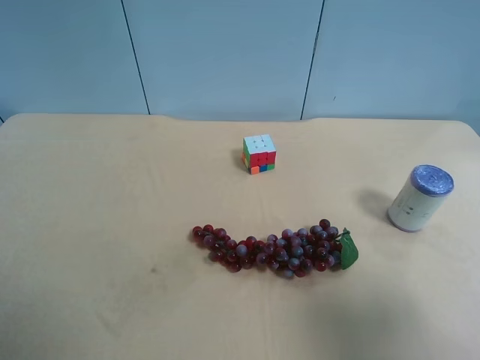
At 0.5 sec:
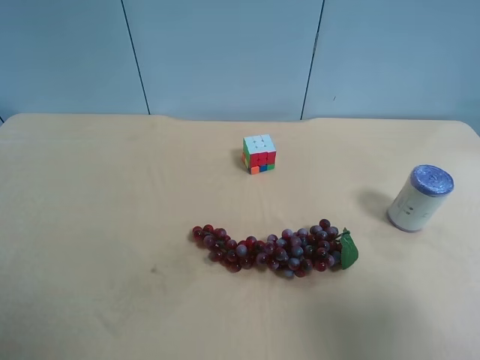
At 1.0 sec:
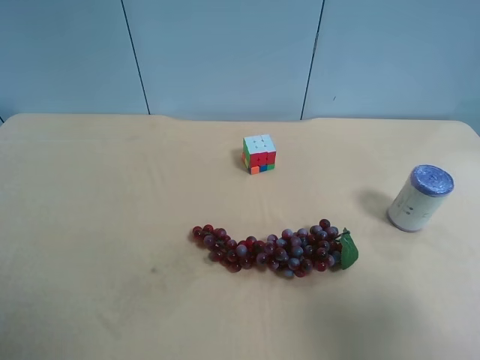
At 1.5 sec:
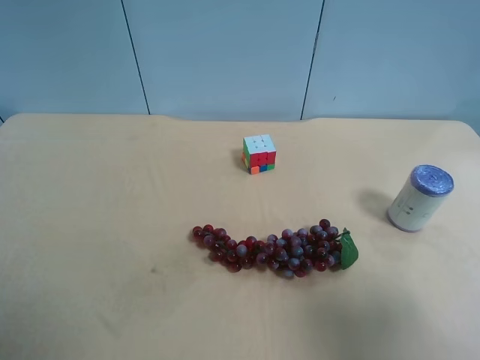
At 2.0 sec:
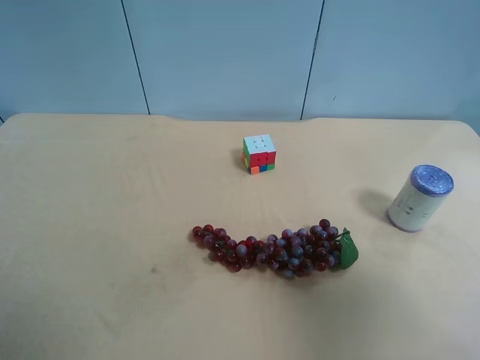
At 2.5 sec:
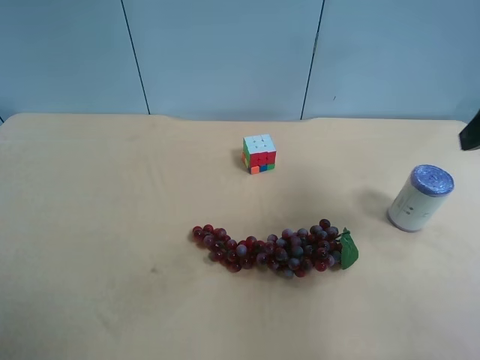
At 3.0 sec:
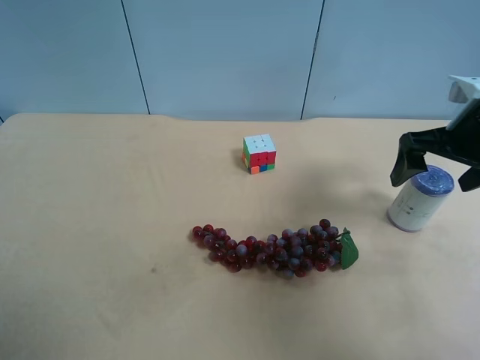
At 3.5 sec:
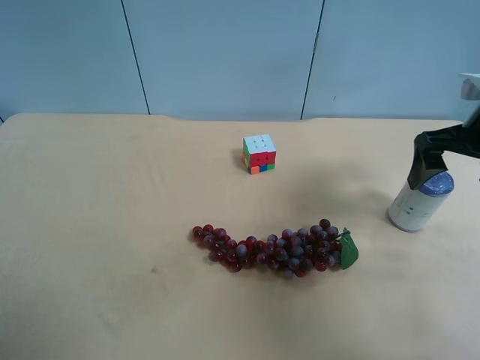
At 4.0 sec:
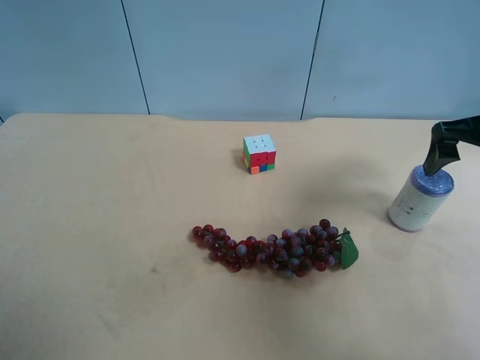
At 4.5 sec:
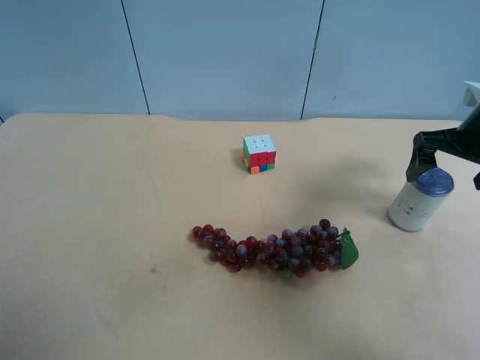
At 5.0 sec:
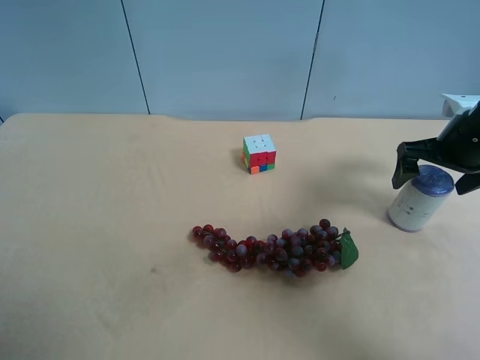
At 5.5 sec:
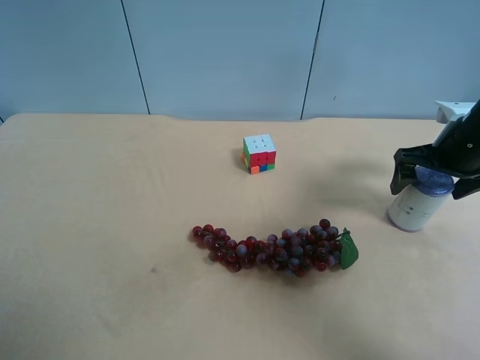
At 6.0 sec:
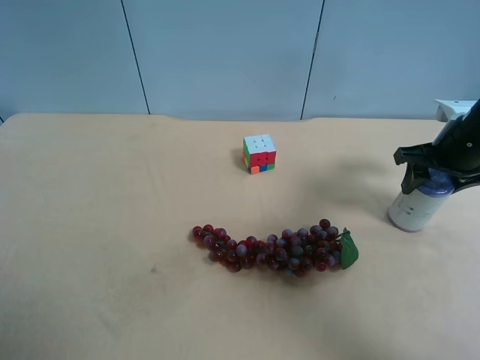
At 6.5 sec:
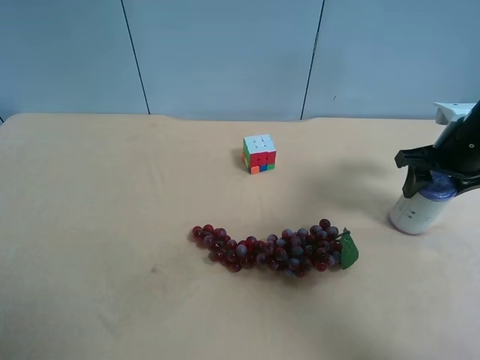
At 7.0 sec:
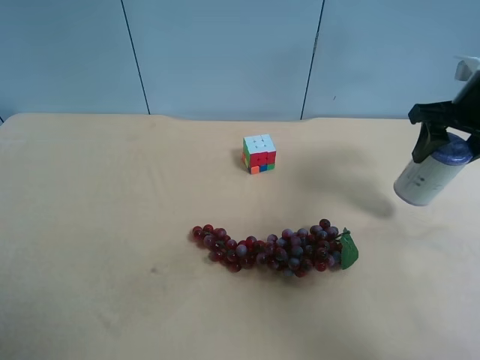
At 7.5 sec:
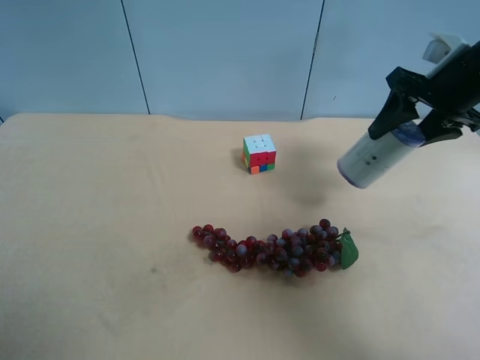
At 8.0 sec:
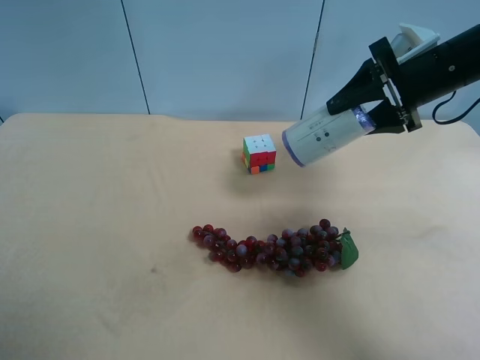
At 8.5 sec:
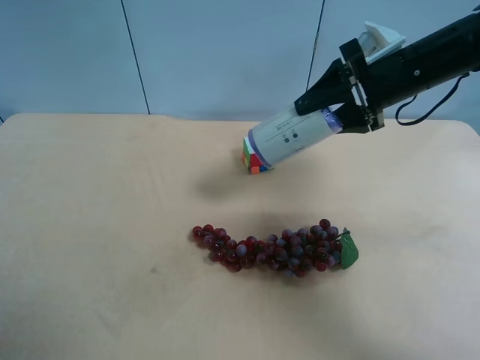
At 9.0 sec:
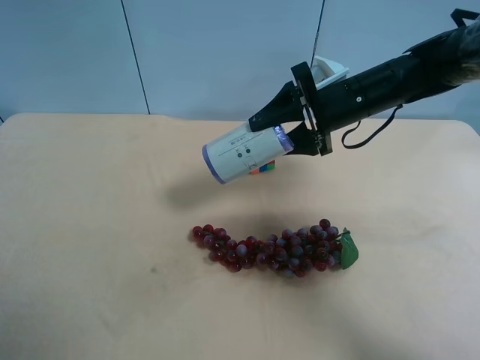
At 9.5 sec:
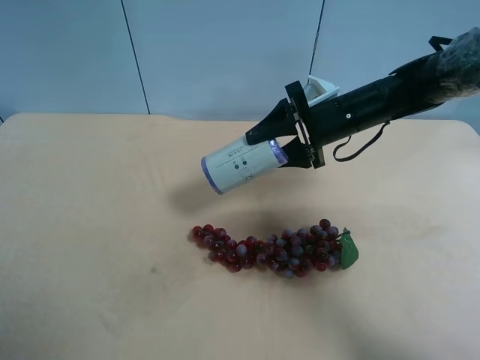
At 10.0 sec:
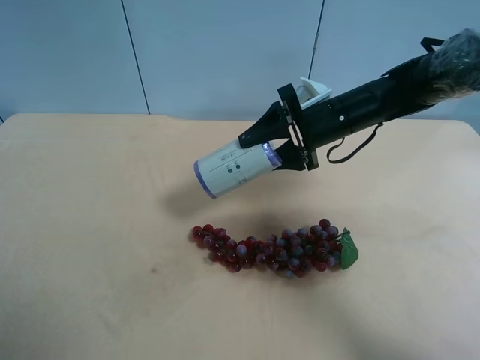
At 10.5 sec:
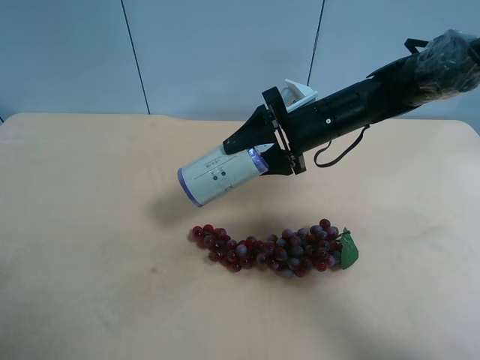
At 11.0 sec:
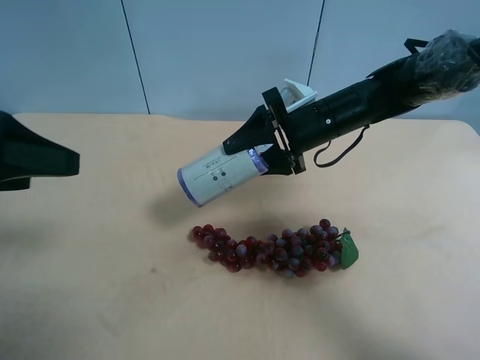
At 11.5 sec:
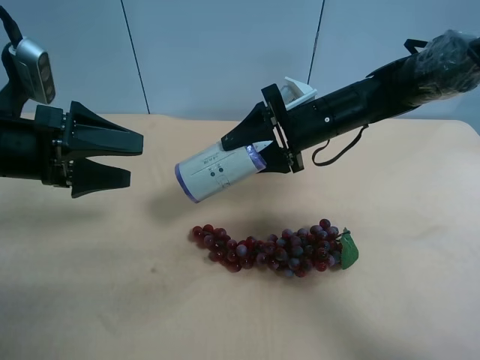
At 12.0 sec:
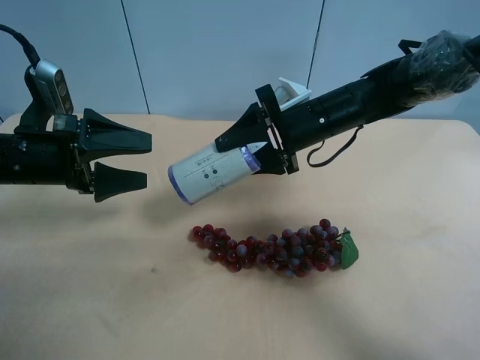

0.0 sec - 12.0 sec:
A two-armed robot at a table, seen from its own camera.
Task of the whole recording: use the right gripper to pick up the item and transfer it from the right gripper to the left gripper.
2.0 sec - 4.0 sec: The right gripper heads forward, covering some 25 cm.
4.0 sec - 6.0 sec: The right gripper moves downward, roughly 5 cm, and closes up.
6.0 sec - 8.0 sec: The right gripper is displaced upward and to the left by about 10 cm.
8.0 sec - 10.0 sec: The right gripper heads to the left and downward, covering approximately 15 cm.
10.0 sec - 12.0 sec: The left gripper moves forward and downward, roughly 30 cm.

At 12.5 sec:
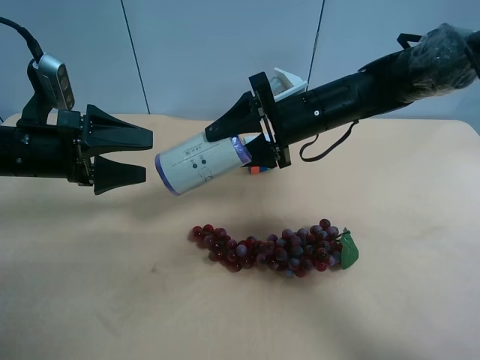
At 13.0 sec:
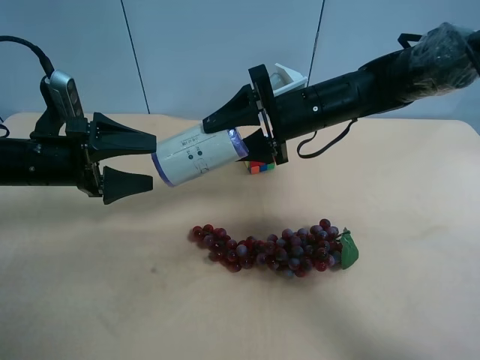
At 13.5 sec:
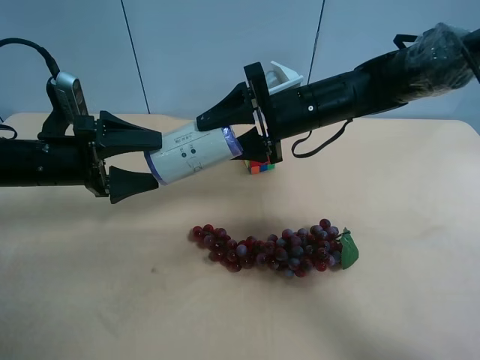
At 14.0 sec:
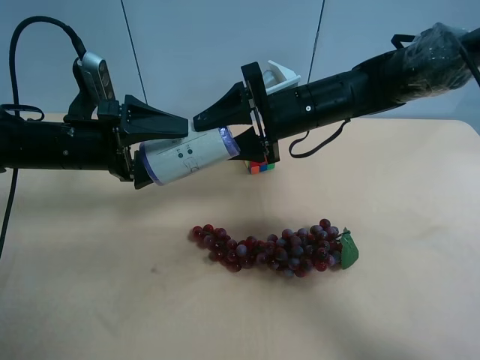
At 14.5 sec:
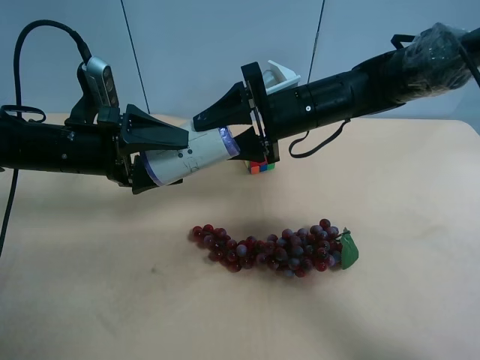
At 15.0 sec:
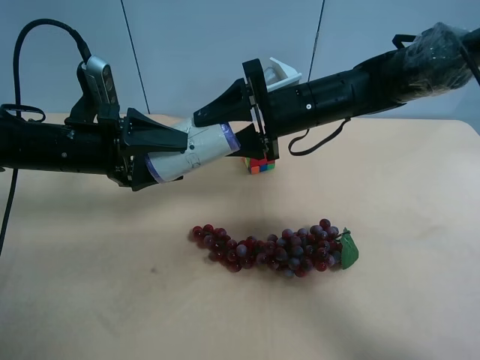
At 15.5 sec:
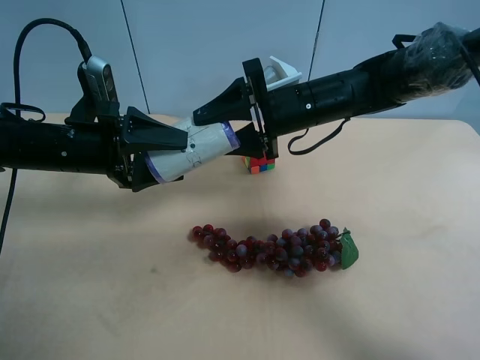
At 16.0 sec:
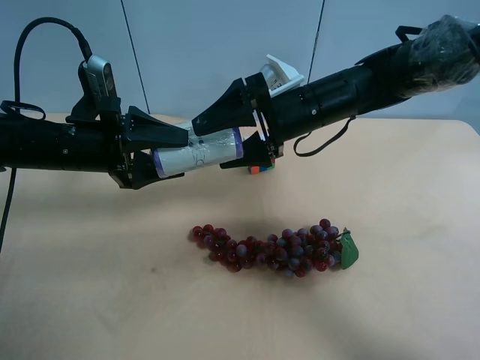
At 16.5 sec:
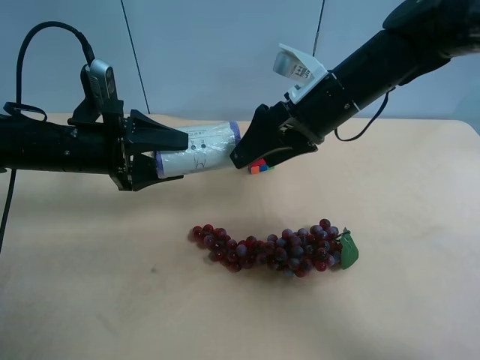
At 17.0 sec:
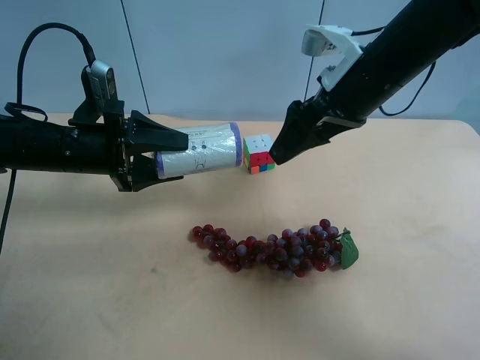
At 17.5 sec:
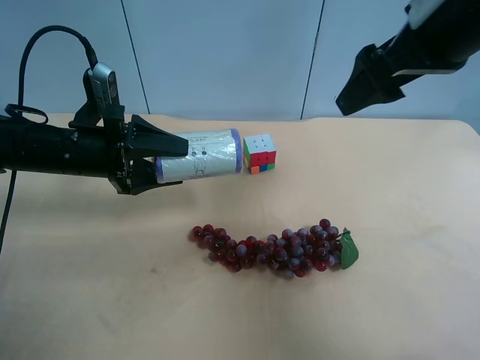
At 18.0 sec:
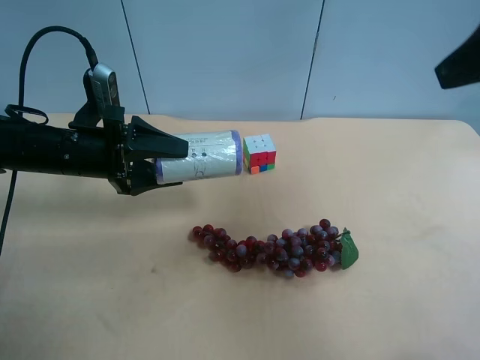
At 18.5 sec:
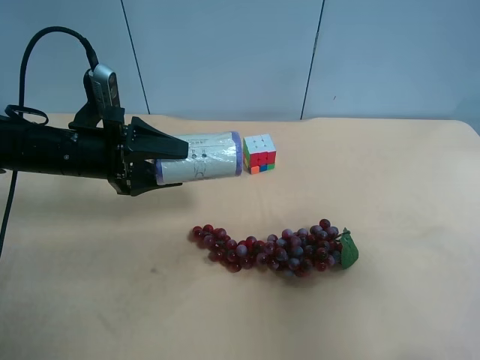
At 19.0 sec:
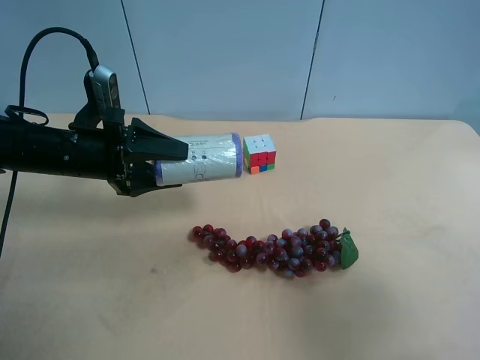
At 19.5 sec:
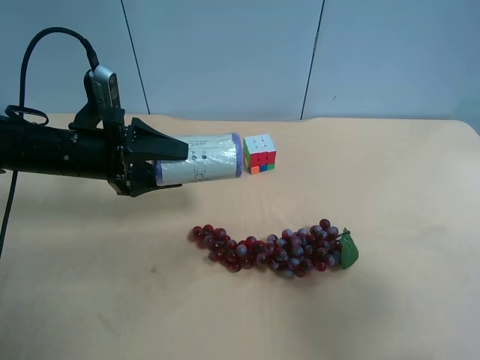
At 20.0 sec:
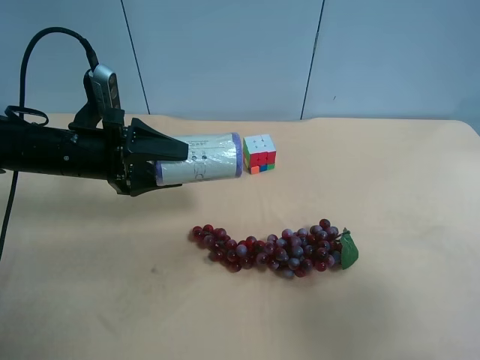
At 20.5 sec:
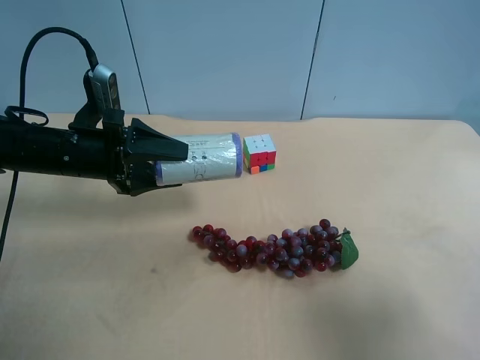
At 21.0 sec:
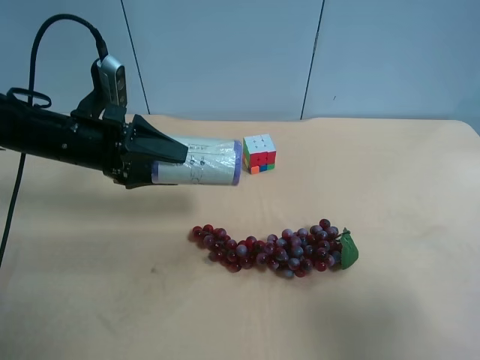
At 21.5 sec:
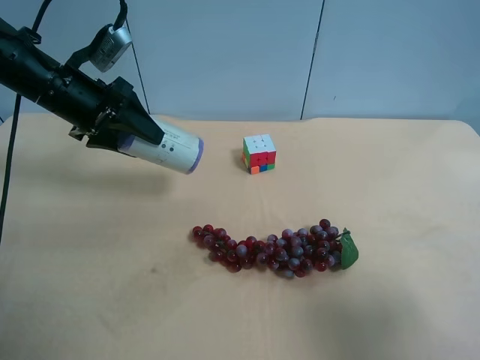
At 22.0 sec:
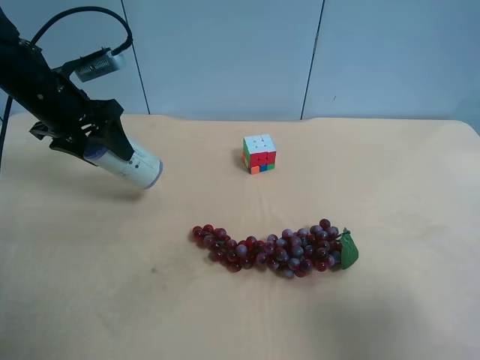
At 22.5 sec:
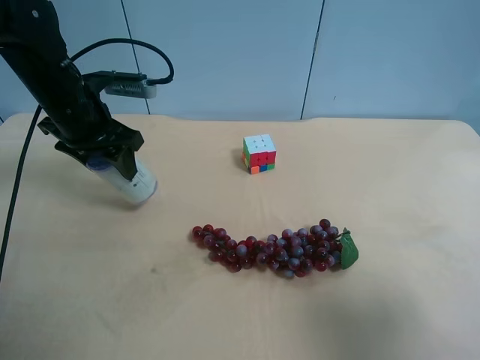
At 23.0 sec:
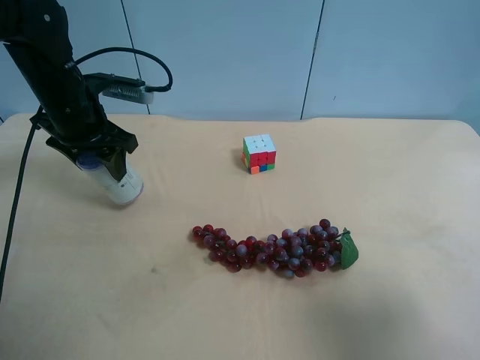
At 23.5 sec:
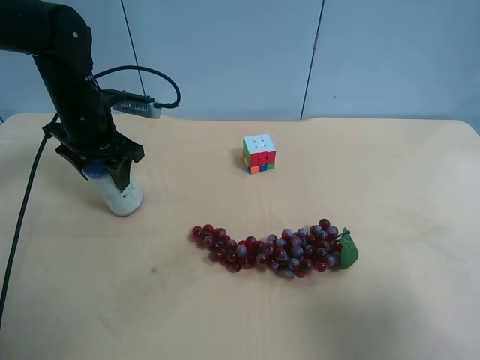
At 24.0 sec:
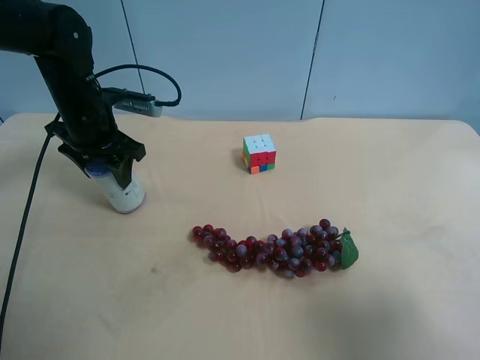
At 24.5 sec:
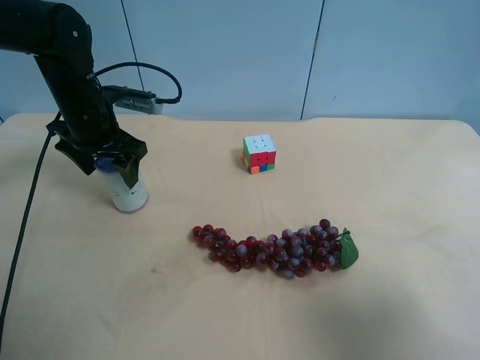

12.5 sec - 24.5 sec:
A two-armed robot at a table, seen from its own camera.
Task of the whole recording: use the right gripper to pick up the item and transfer it from the right gripper to the left gripper.
12.5 sec - 14.5 sec: The grippers move only a little.
14.5 sec - 16.5 sec: The right gripper changes place by some 5 cm, and opens up, while the left gripper closes up.
16.5 sec - 18.5 sec: The right gripper is displaced backward and to the right by roughly 30 cm.
18.5 sec - 20.5 sec: The right gripper is displaced backward by roughly 5 cm.
20.5 sec - 22.5 sec: The left gripper goes about 10 cm upward and forward.
22.5 sec - 24.5 sec: The left gripper opens its fingers.

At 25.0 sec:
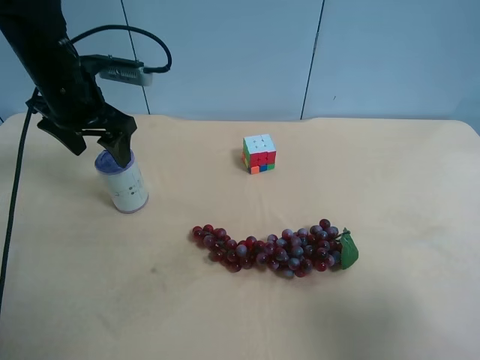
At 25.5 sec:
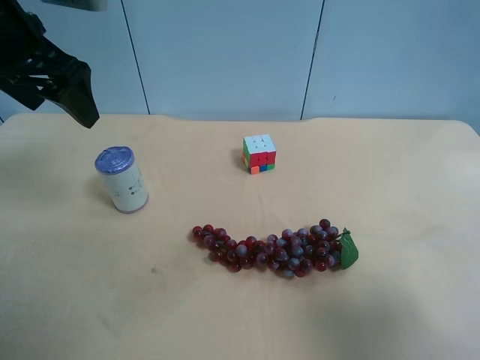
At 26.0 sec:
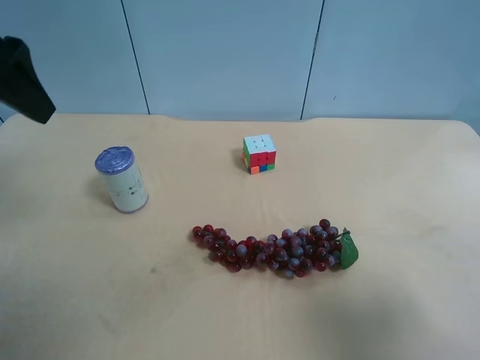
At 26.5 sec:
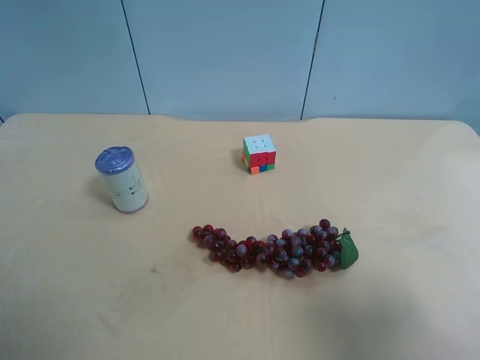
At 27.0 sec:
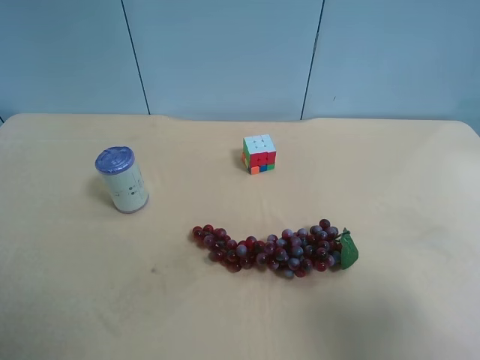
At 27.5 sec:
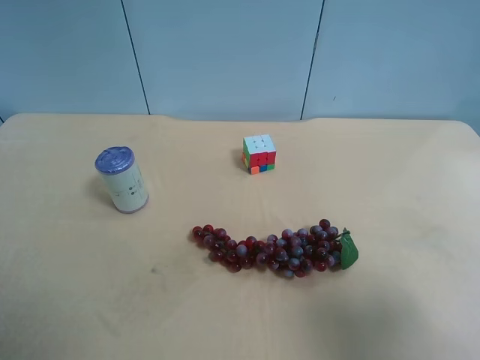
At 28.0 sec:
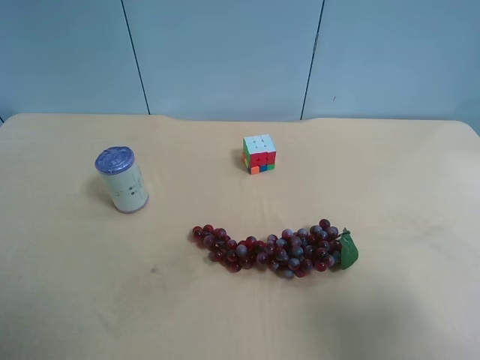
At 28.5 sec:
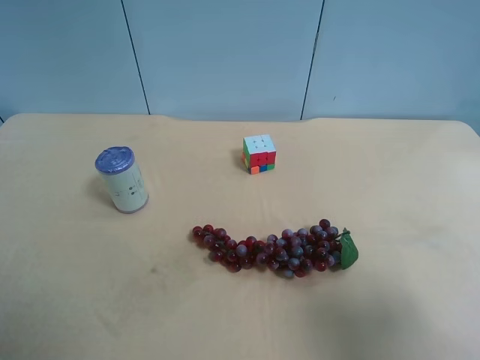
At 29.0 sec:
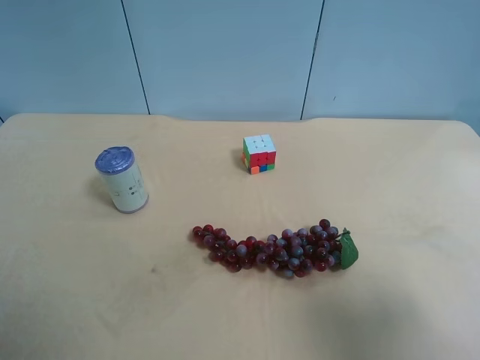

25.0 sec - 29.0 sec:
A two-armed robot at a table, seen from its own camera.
Task of the whole recording: use the right gripper to pick up the item and transfer it from the right gripper to the left gripper.
25.0 sec - 27.0 sec: The left gripper moves backward, some 30 cm, and opens its fingers.
